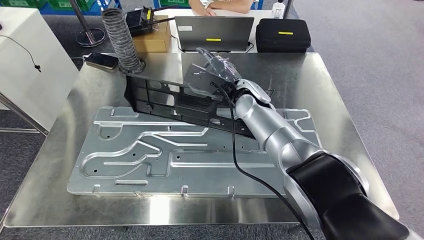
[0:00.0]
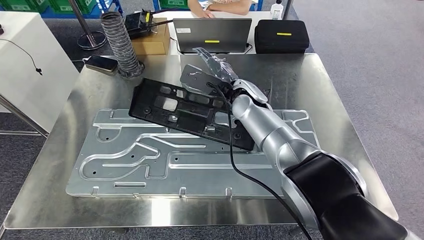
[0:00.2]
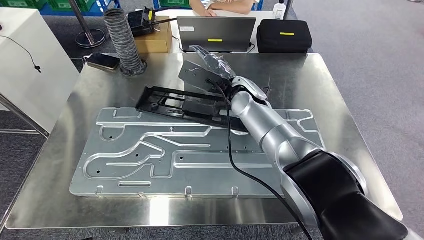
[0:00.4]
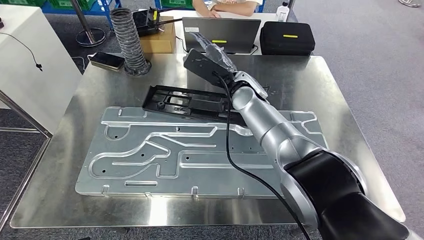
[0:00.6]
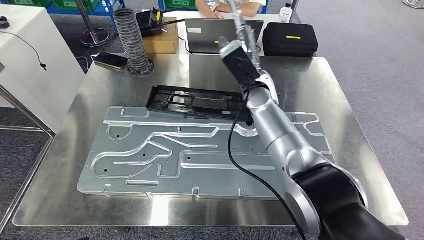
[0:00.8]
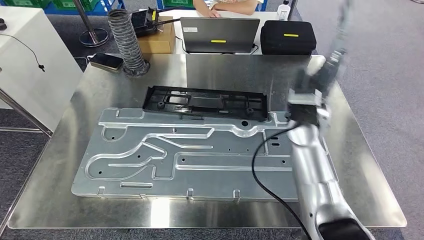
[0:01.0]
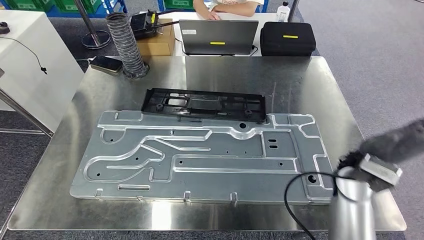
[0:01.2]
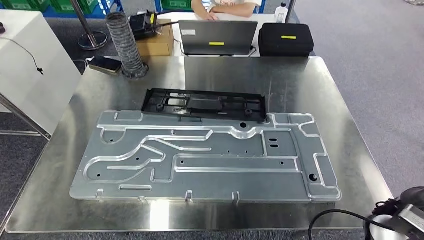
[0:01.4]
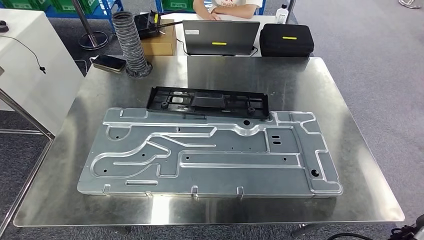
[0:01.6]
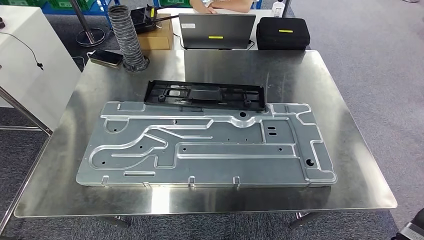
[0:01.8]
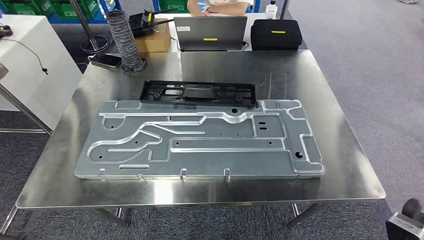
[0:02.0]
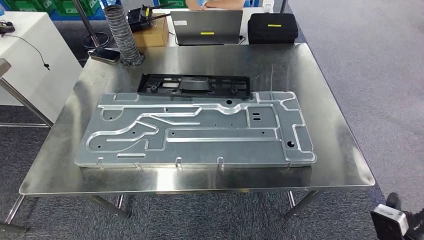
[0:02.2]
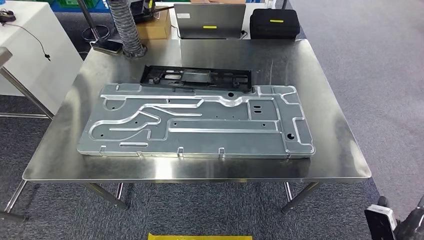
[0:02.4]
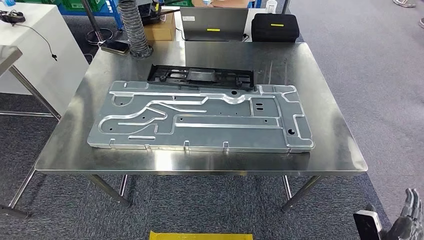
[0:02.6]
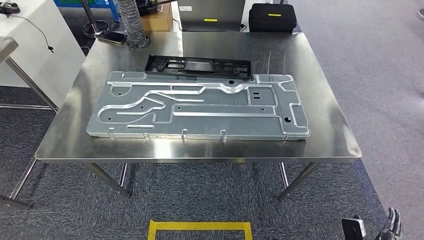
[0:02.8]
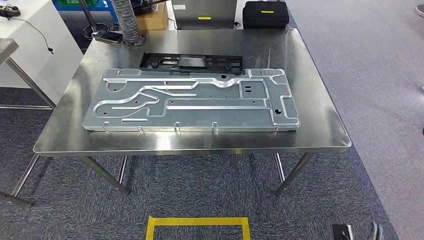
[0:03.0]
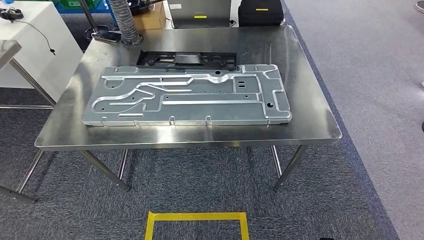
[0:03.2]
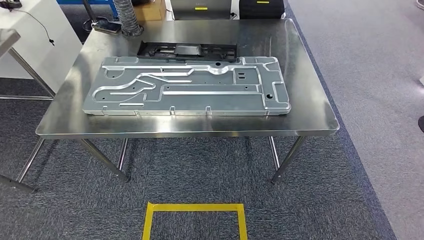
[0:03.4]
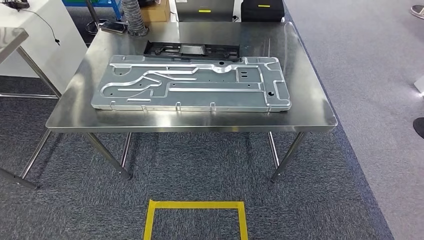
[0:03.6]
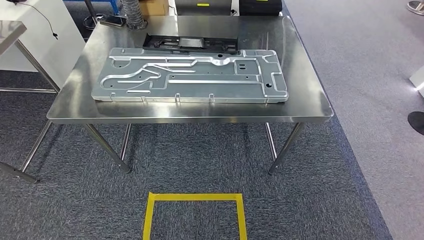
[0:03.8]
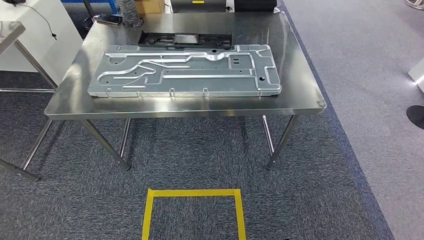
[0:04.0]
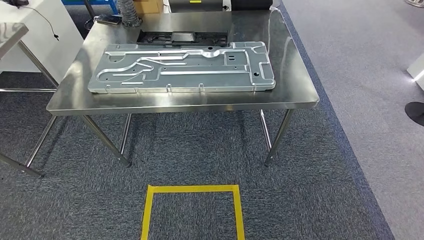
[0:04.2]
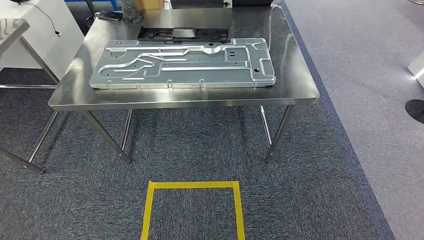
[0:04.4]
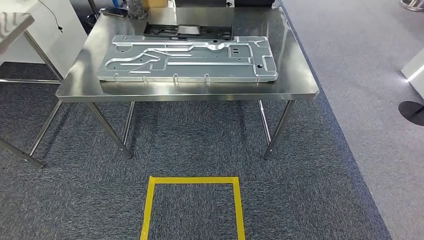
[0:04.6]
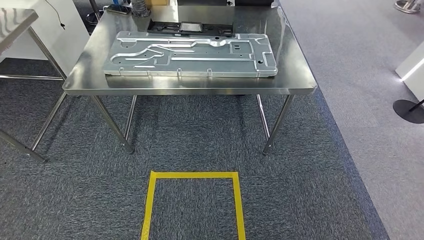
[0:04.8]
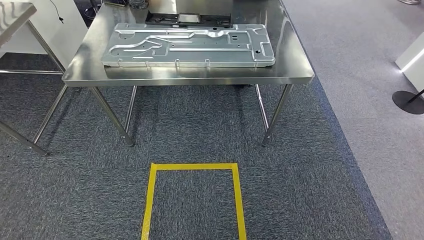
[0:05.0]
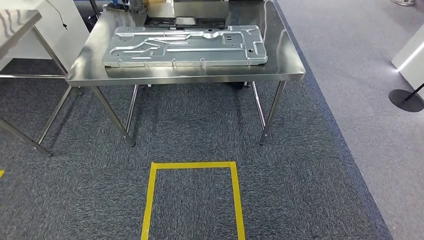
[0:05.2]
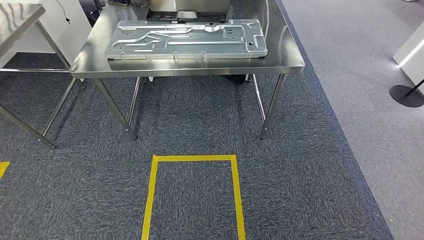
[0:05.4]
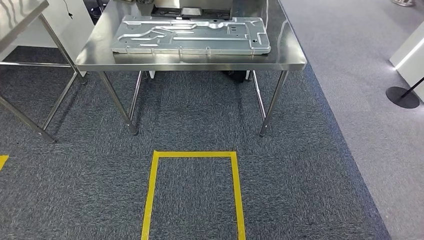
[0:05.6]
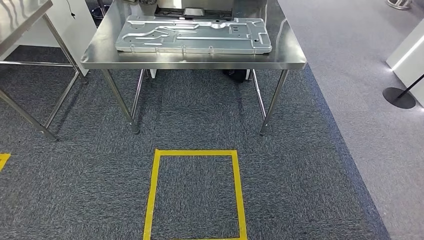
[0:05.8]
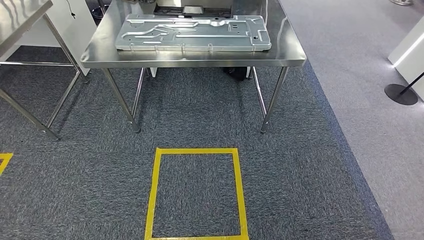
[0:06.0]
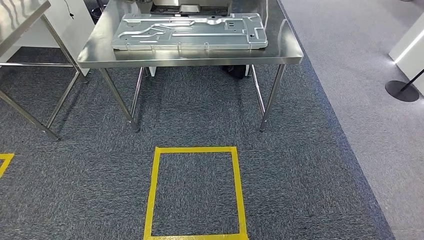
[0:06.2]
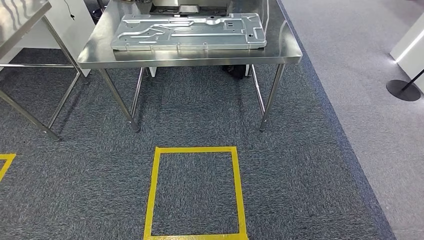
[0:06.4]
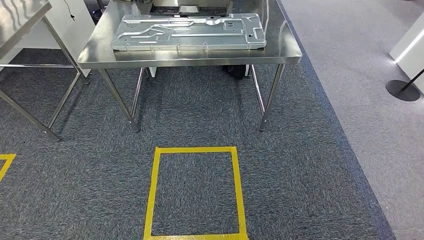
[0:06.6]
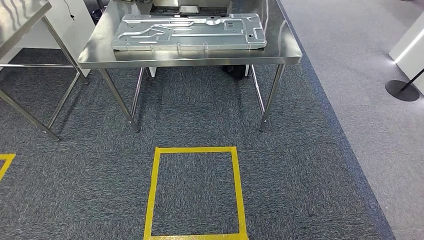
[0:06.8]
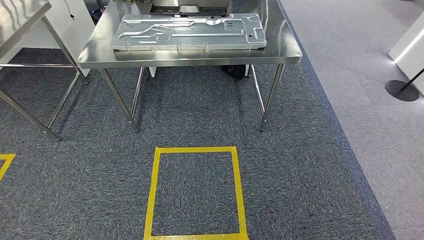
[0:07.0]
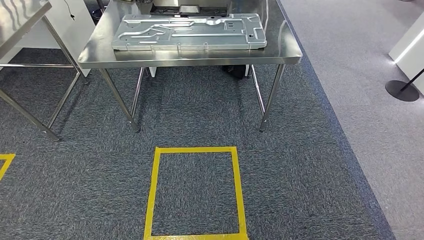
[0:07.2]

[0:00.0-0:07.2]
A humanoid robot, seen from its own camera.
Step, 0:00.0 to 0:02.2: Insert the large material into the corresponding slot on the workbench.
Step, 0:02.6 to 0:07.2: Move to the initial position of the shelf.
0:05.8 to 0:07.2: There are only small adjustments of the hands.
